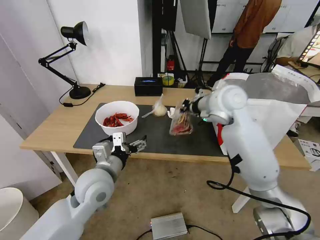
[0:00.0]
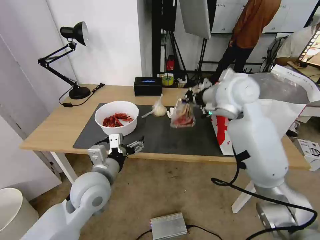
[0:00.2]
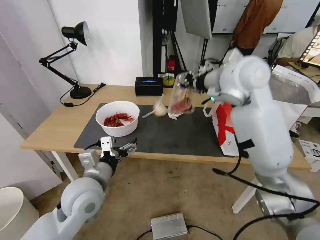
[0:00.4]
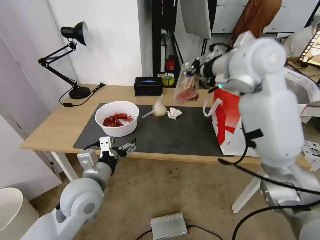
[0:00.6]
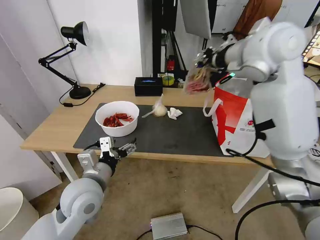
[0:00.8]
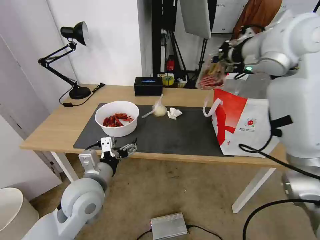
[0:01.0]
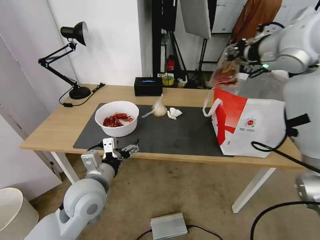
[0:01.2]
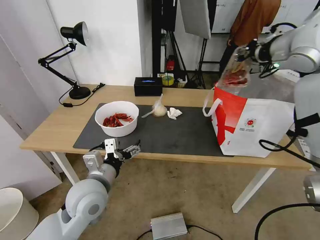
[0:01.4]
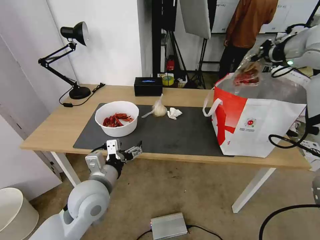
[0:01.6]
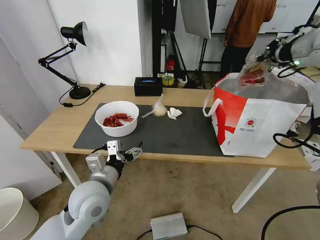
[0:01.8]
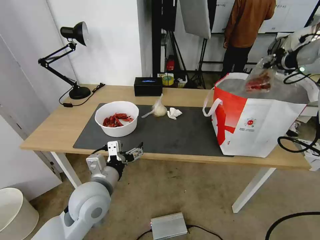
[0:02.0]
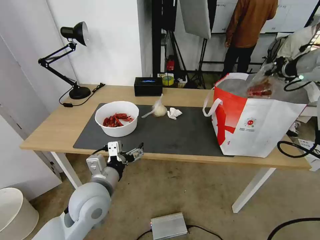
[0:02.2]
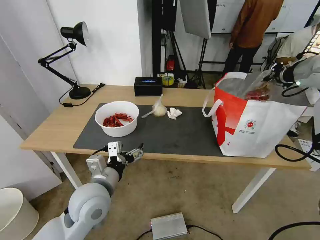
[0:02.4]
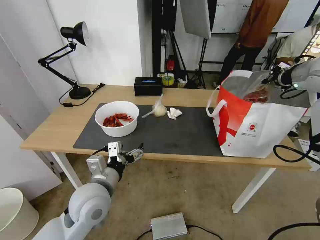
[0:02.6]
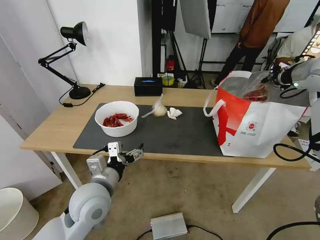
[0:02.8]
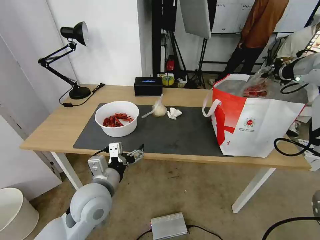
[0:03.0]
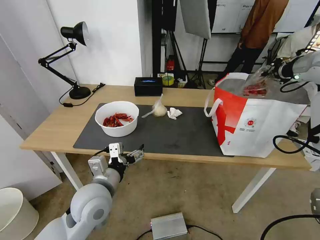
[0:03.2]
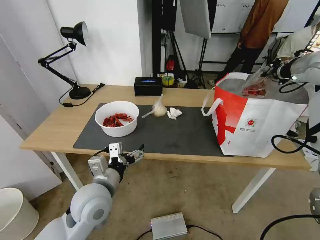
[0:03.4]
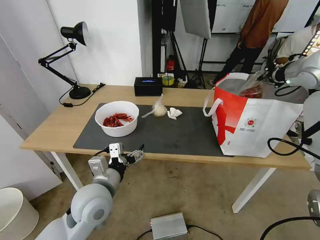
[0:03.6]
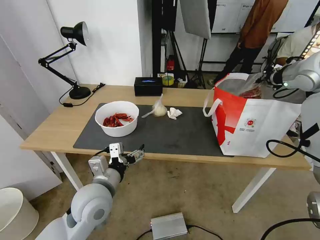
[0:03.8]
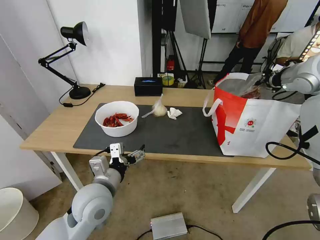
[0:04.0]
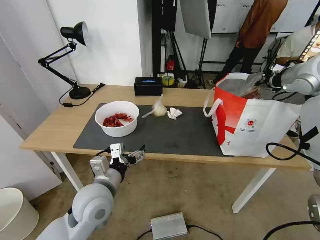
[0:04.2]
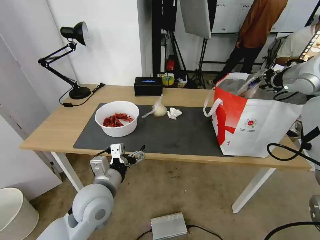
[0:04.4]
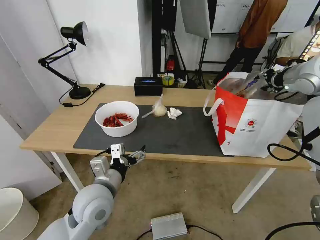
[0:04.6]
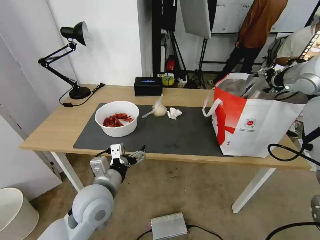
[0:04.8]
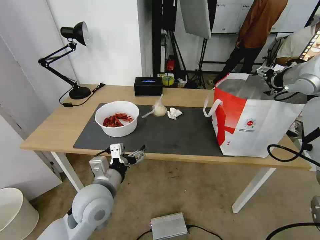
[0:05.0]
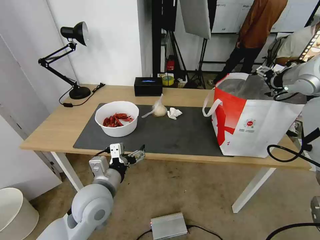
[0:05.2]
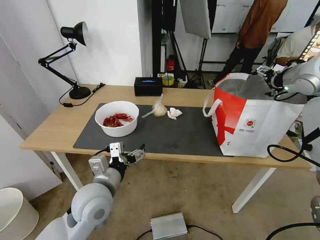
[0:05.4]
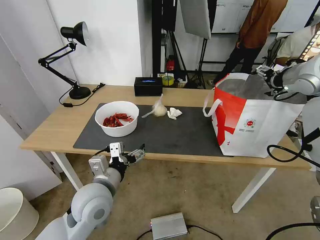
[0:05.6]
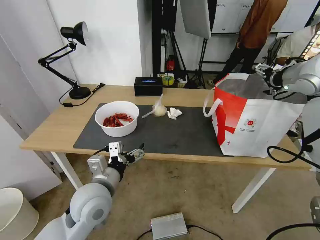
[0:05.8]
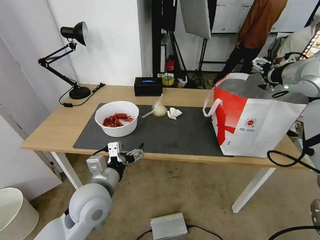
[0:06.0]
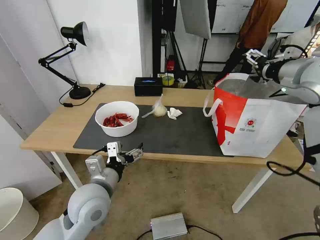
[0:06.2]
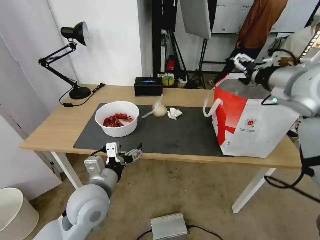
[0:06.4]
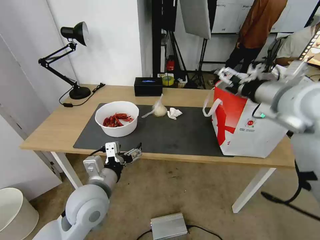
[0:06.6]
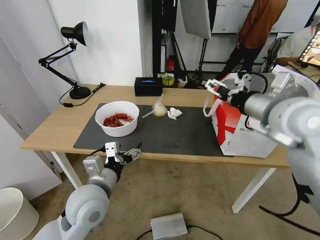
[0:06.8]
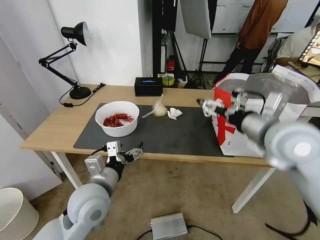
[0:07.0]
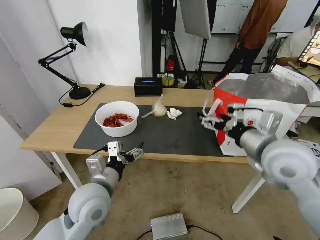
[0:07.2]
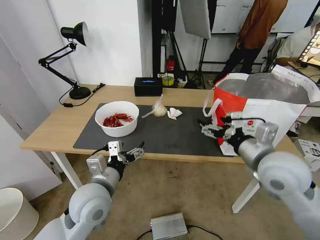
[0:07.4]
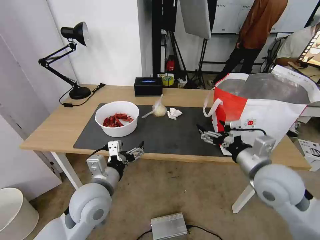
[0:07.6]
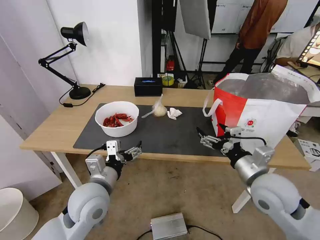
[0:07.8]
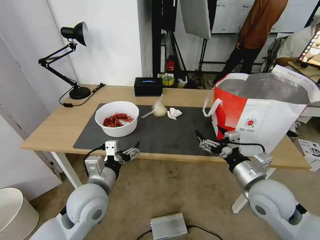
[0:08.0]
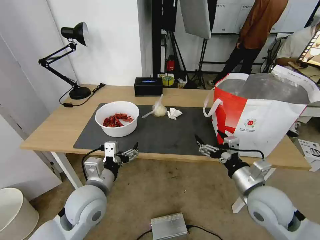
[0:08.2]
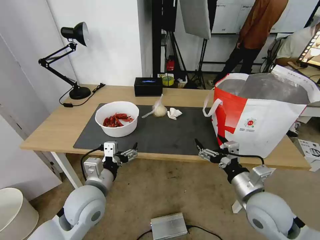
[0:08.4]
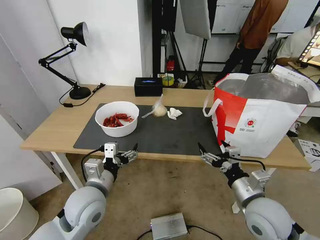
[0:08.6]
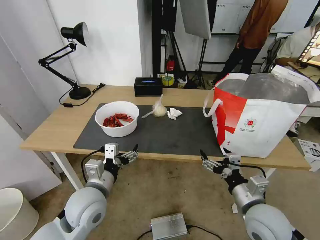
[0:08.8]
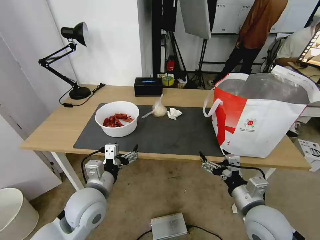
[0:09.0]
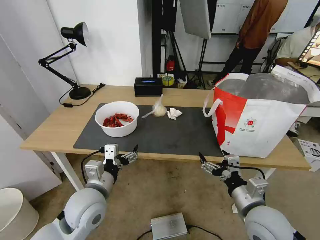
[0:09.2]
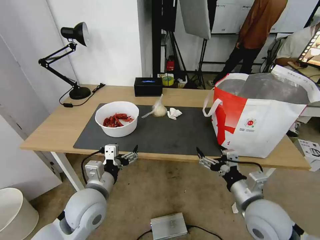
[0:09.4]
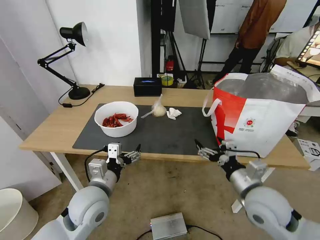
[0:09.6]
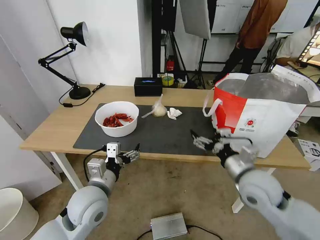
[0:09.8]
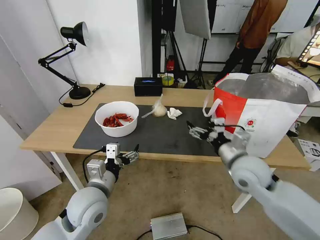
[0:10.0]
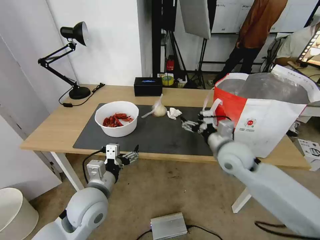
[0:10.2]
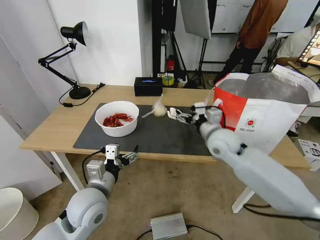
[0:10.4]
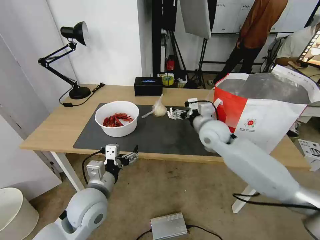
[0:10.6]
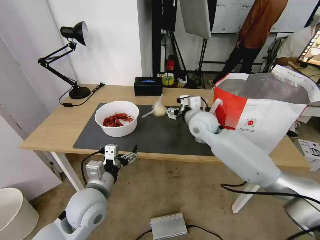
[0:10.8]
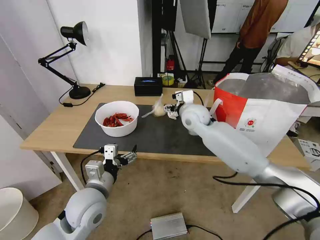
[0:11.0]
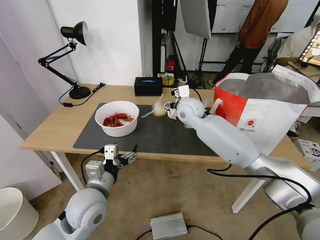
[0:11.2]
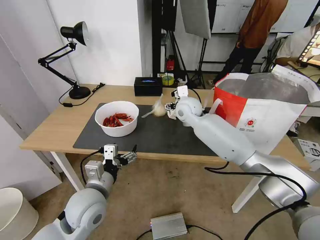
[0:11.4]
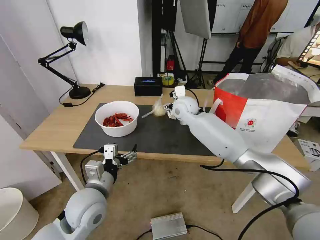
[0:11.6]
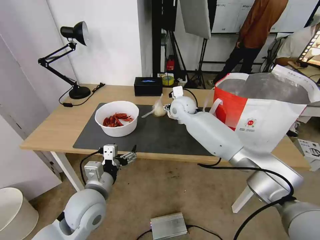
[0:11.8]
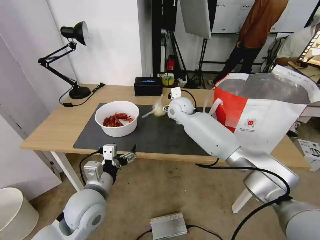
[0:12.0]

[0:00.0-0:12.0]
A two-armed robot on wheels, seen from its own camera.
Task of the whole recording: Pick up the trash from the table and place it into the takeout bag.
0:00.0 to 0:01.6: The right gripper travels to the right and upward by roughly 25 cm.
0:01.6 to 0:03.0: The right gripper goes about 10 cm to the right and downward.
0:03.0 to 0:04.4: The grippers make only small movements.
0:04.4 to 0:06.0: The right gripper opens its fingers.
0:06.0 to 0:07.6: The right gripper is displaced downward, backward and to the left by some 30 cm.
0:07.6 to 0:09.0: The right gripper travels downward and backward by approximately 10 cm.
0:09.0 to 0:10.4: The right gripper moves forward, some 20 cm.
0:10.4 to 0:12.0: The right gripper is displaced forward and to the left by some 20 cm.

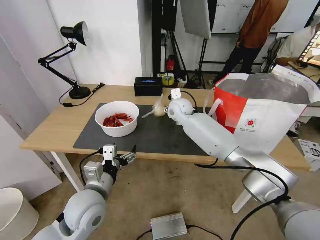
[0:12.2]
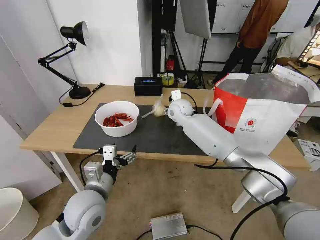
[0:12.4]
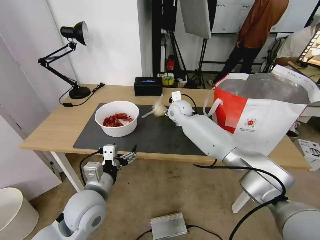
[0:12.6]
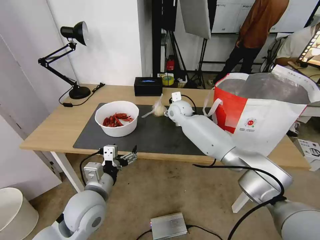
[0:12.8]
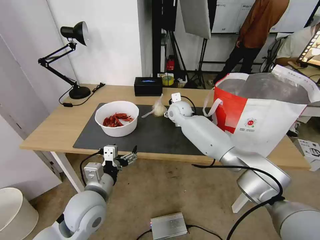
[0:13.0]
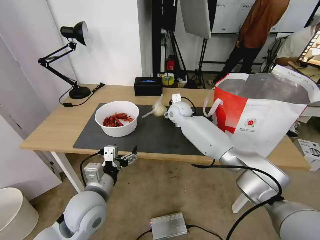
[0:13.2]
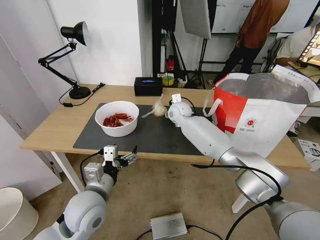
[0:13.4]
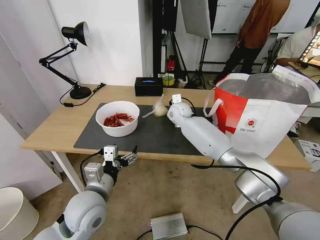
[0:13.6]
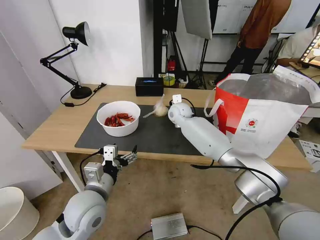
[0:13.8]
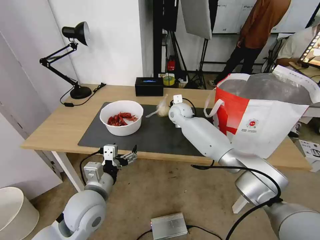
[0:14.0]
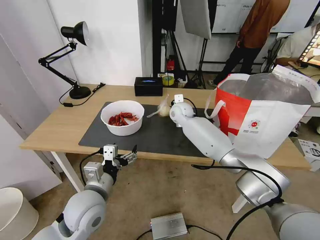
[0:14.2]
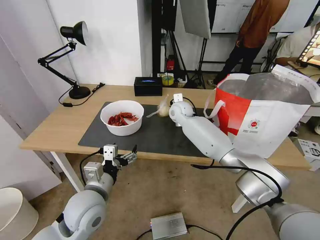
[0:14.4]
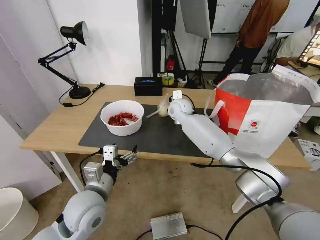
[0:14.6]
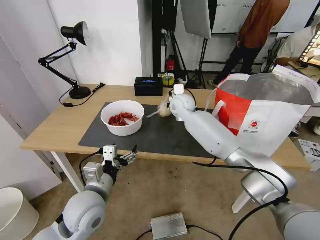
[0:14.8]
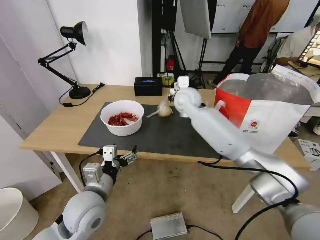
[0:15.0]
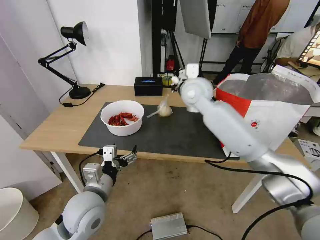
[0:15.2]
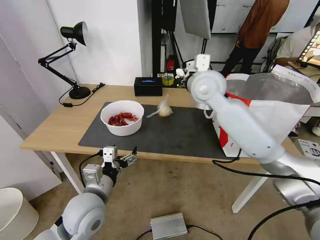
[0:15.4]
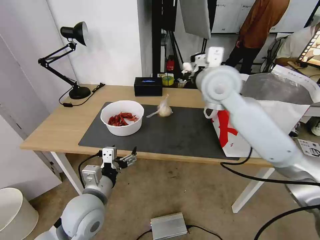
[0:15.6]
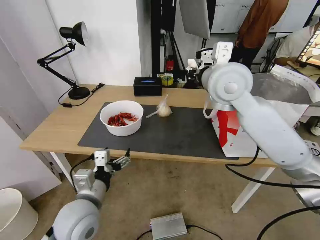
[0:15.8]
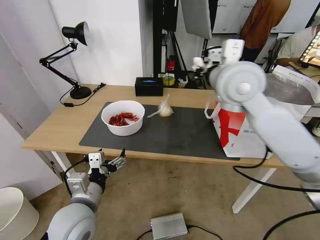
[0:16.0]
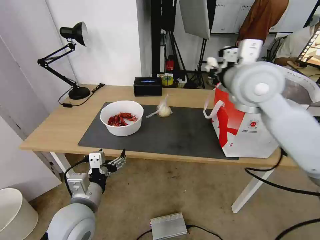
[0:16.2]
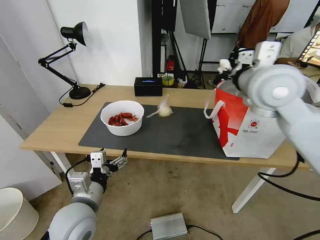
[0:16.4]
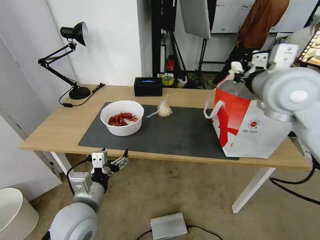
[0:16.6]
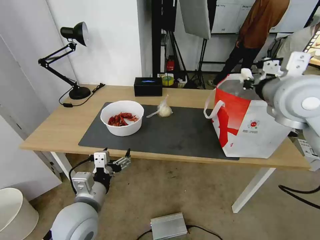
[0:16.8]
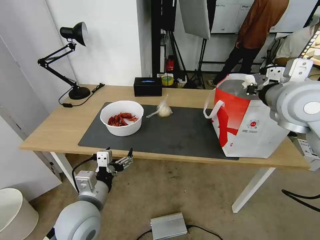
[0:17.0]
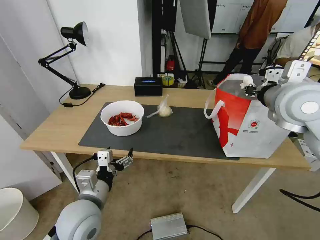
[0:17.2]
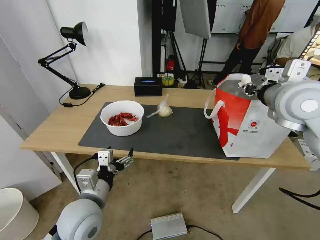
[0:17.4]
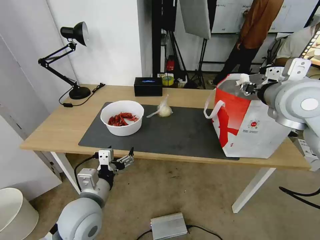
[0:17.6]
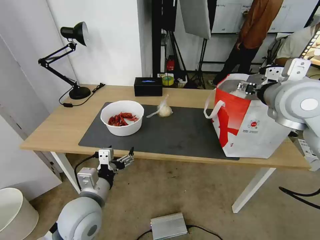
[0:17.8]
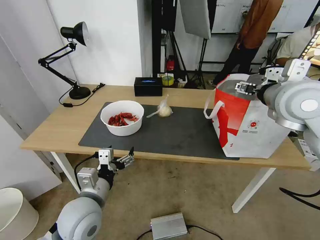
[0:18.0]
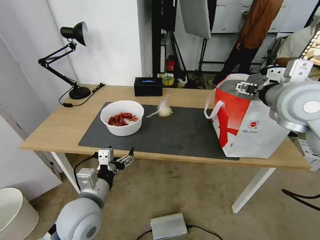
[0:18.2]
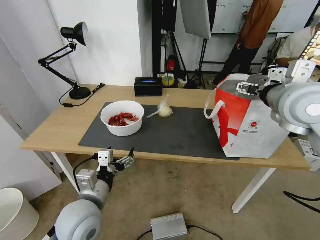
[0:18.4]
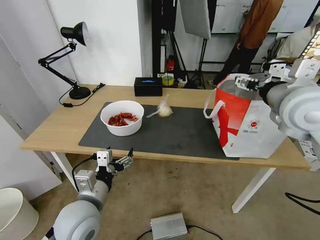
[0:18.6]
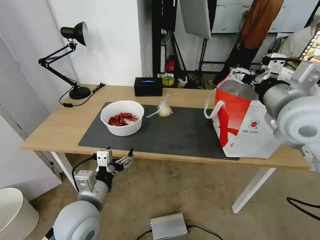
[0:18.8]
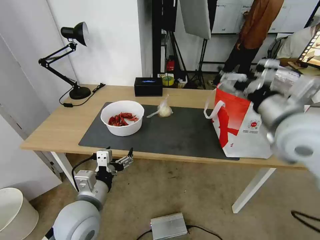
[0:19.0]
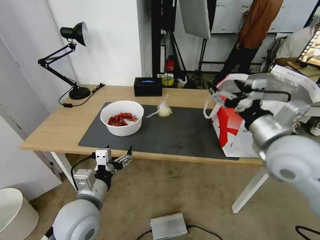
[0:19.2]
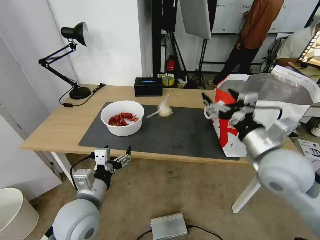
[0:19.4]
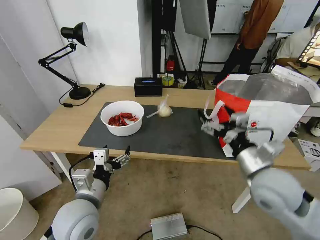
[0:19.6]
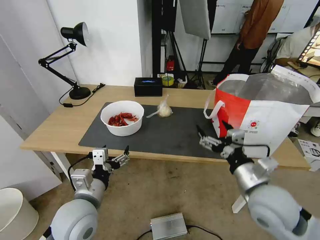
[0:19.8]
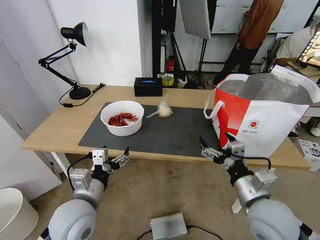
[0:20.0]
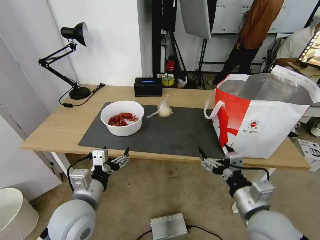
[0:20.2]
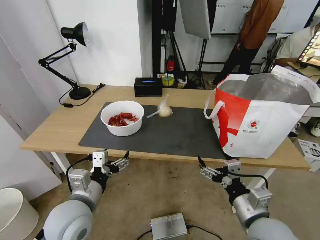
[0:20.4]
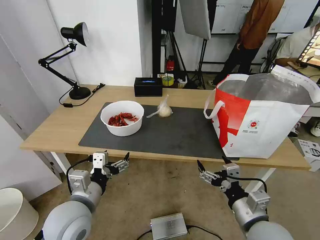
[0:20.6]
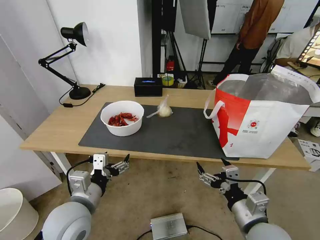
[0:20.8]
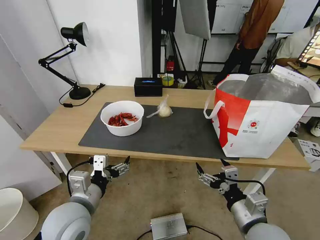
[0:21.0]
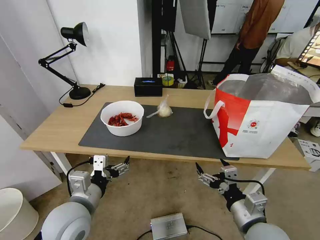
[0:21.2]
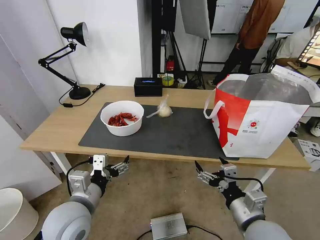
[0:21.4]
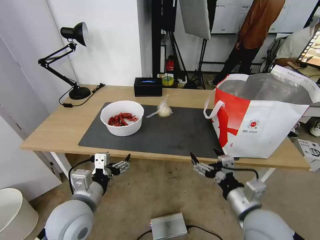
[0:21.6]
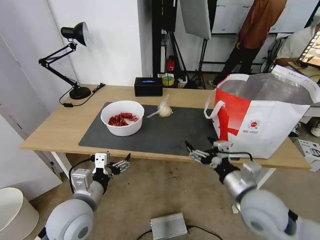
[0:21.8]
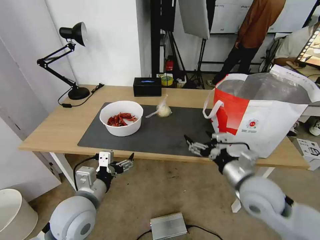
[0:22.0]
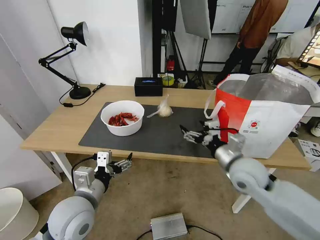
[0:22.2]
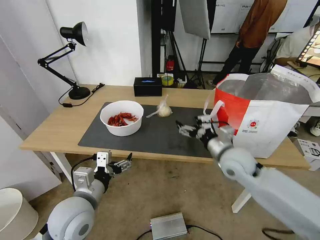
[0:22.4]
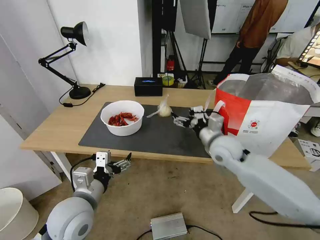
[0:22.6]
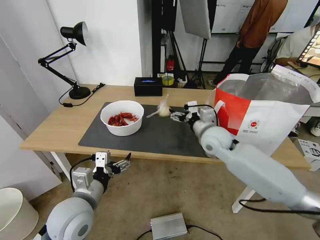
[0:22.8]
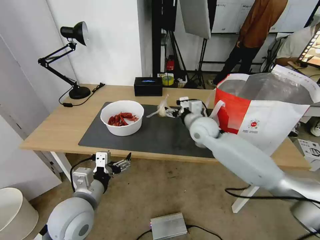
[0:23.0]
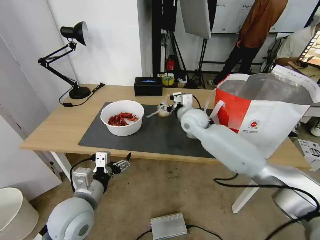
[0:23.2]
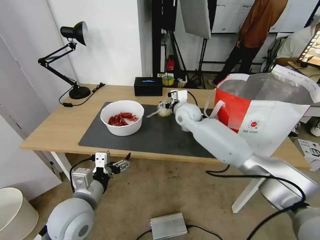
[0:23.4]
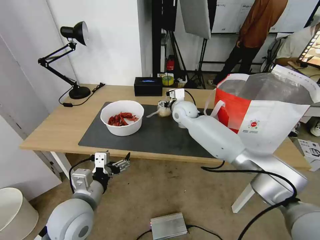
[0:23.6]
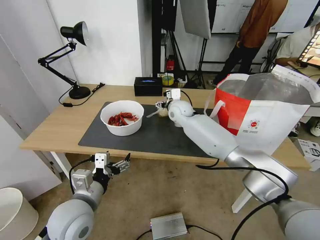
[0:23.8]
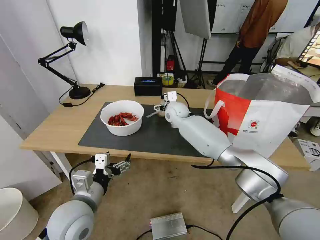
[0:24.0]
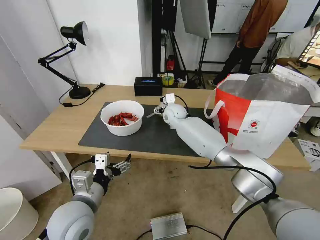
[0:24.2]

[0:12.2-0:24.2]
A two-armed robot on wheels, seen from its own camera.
Task of the whole recording: Pick up the trash from the table and place it into the takeout bag.
0:12.2 to 0:13.8: The right gripper closes.
0:13.8 to 0:15.2: The right gripper goes about 20 cm upward and backward, and closes.
0:15.2 to 0:16.6: The right gripper heads to the right, backward and upward, covering roughly 20 cm.
0:16.6 to 0:18.2: The right gripper opens.
0:18.2 to 0:19.8: The right gripper is displaced downward and backward by about 25 cm.
0:19.8 to 0:21.2: The right gripper moves backward and downward, about 10 cm.
0:21.2 to 0:22.6: The right gripper heads forward, covering roughly 25 cm.
0:22.6 to 0:24.2: The right gripper moves forward and to the left, approximately 25 cm.
